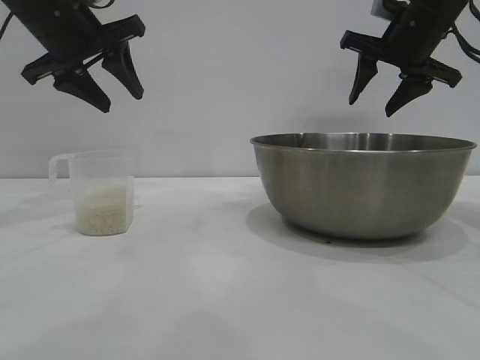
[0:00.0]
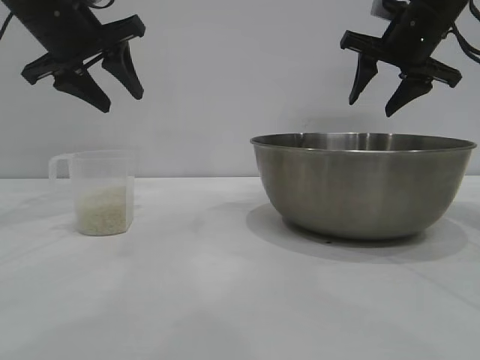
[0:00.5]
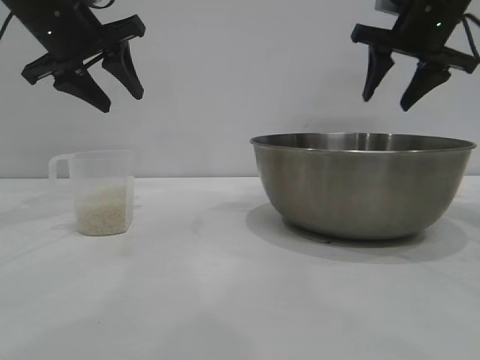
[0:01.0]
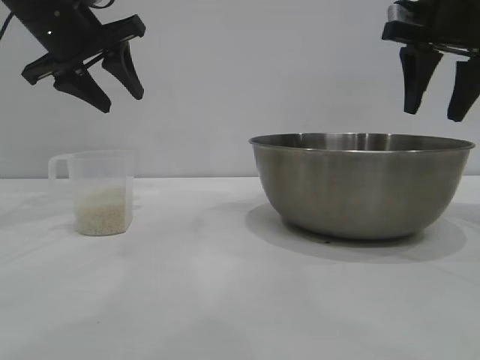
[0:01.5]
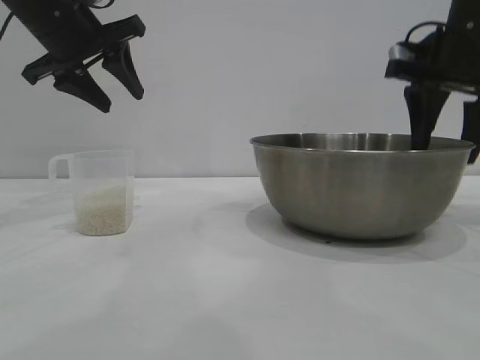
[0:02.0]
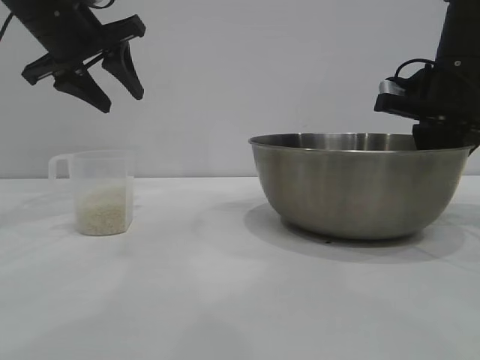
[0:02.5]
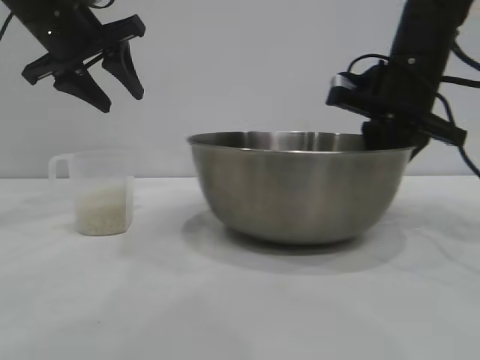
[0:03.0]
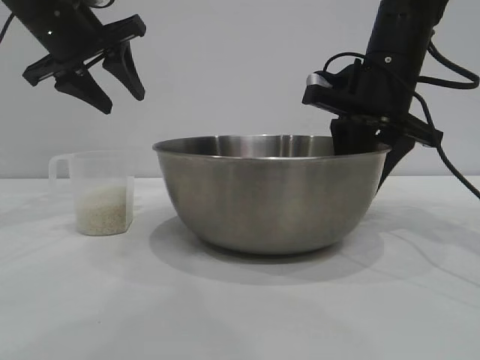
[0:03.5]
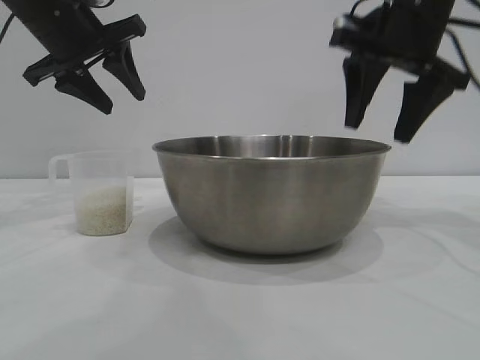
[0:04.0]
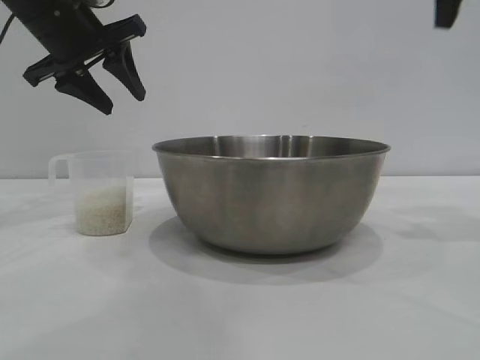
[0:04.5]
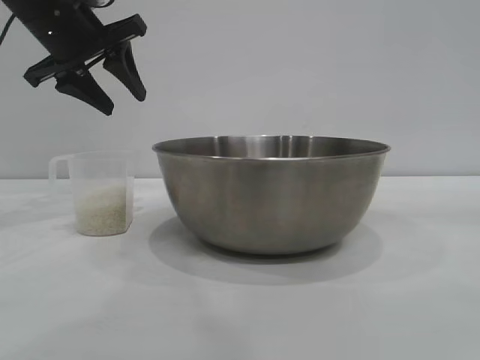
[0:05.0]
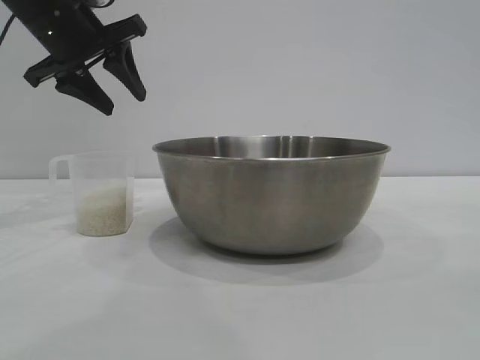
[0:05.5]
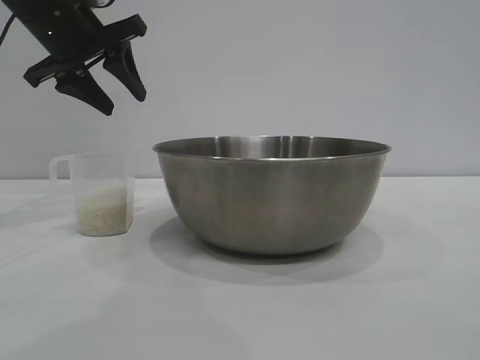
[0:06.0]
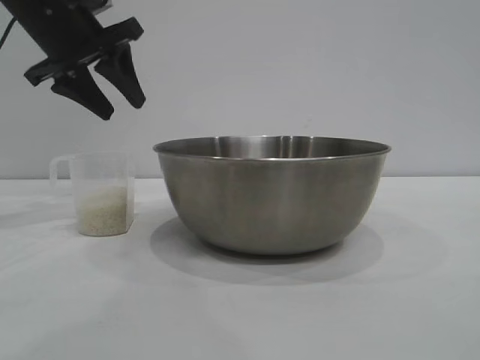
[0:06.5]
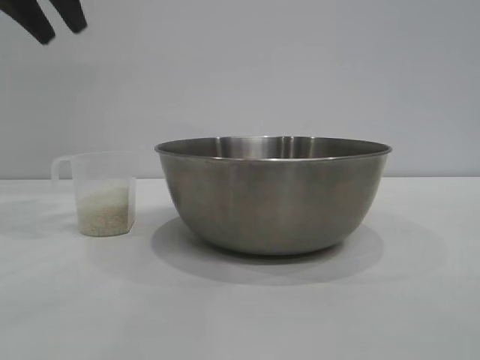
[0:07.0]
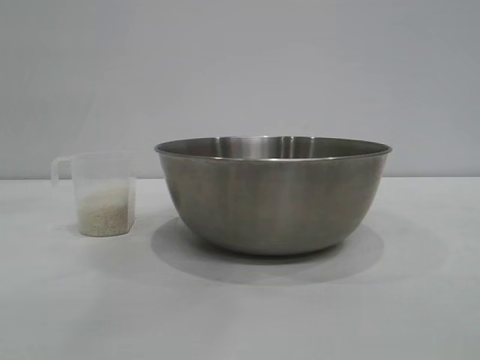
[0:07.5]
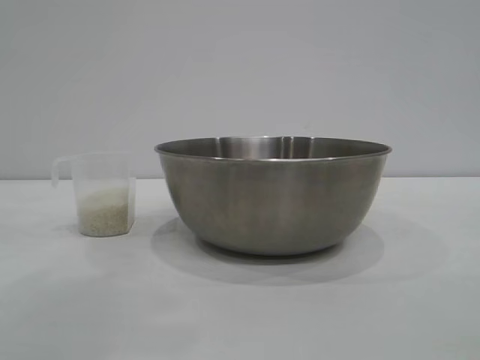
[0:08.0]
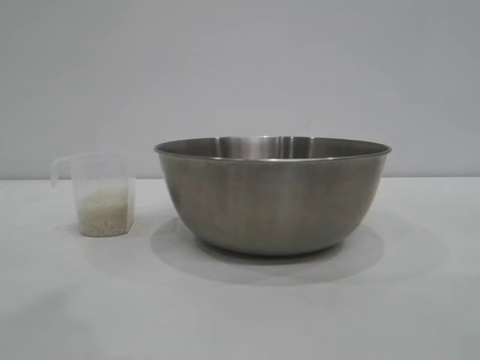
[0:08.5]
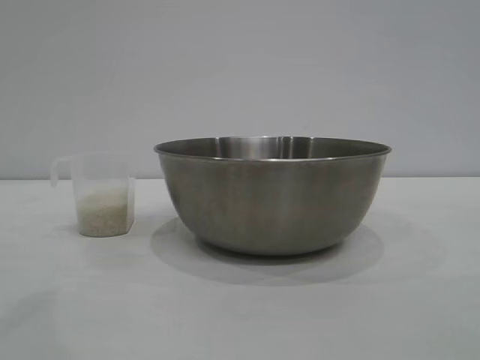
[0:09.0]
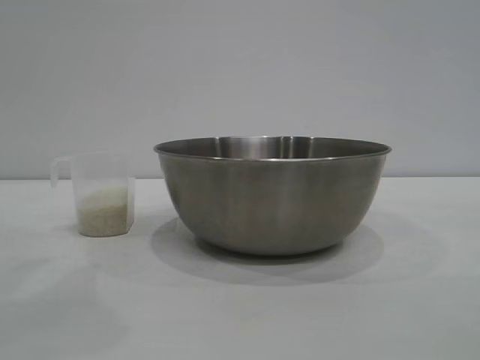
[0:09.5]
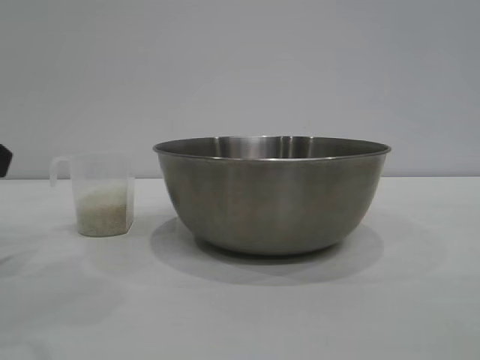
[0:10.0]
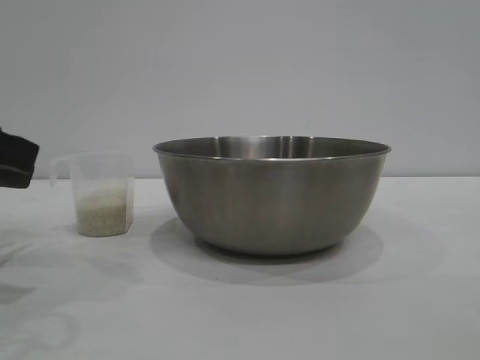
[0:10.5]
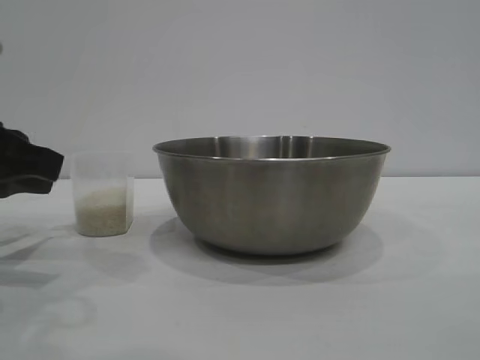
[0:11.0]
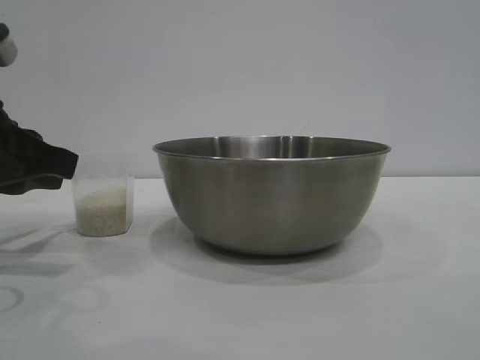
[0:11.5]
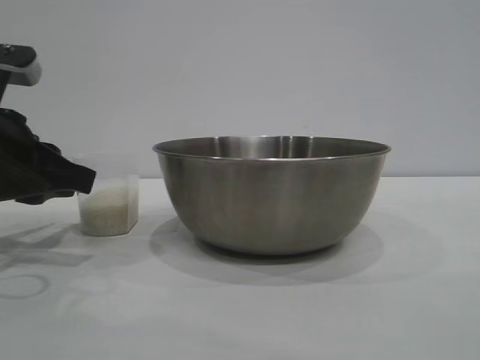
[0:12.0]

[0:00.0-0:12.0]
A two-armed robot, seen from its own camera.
Task of the whole recording: the right gripper grasp the rice container and place it in the center of the table, the left gripper grasp the rice scoop and pour the rice into the rice container.
Step, 0.0 to 3.5 s: Move the bowl to the center of view with the right gripper.

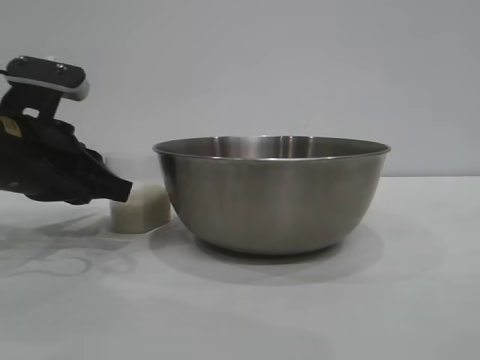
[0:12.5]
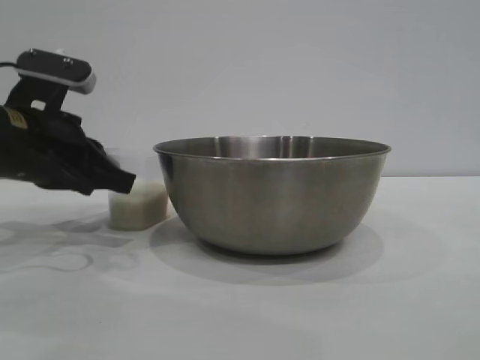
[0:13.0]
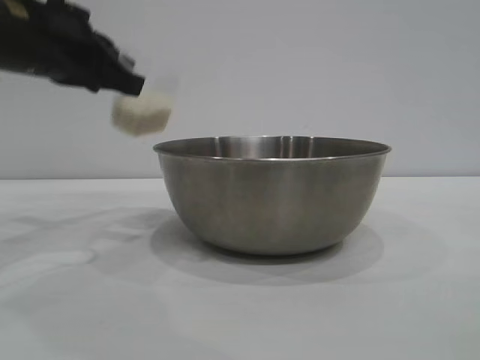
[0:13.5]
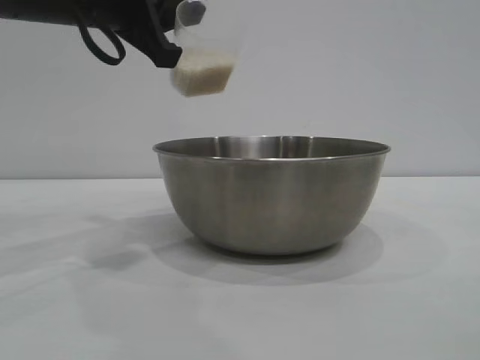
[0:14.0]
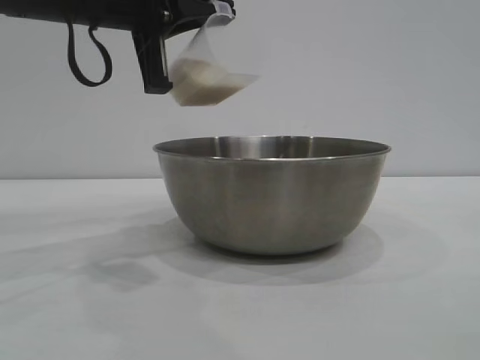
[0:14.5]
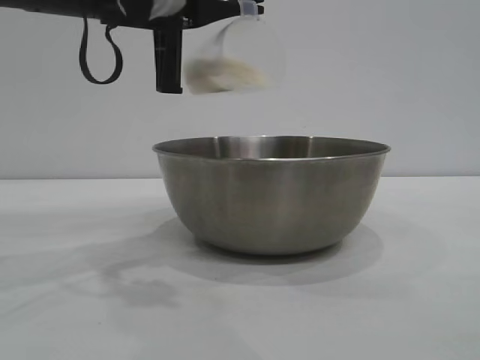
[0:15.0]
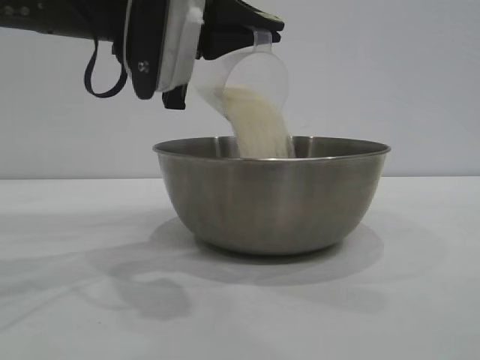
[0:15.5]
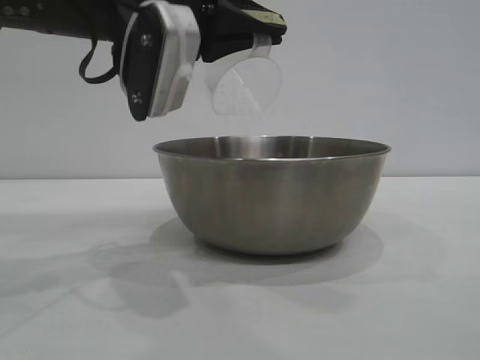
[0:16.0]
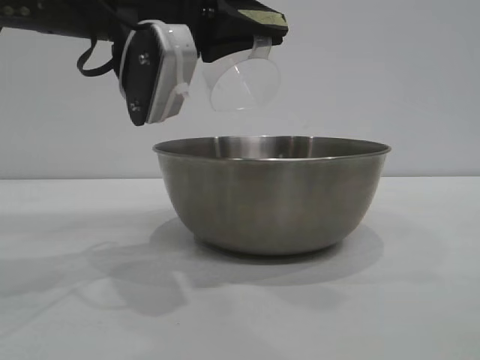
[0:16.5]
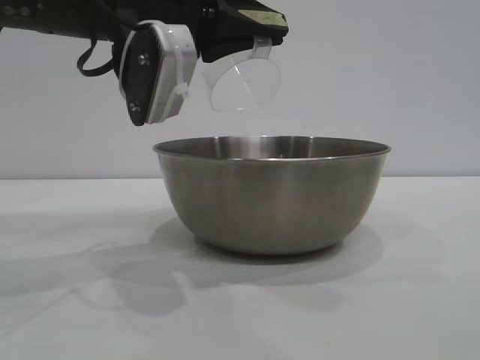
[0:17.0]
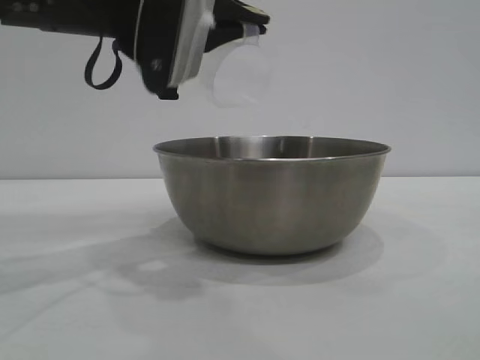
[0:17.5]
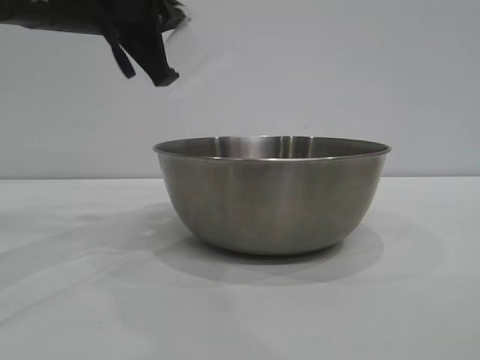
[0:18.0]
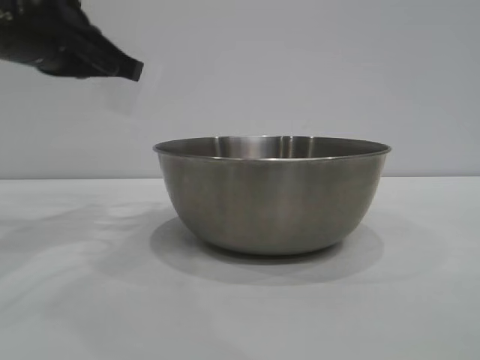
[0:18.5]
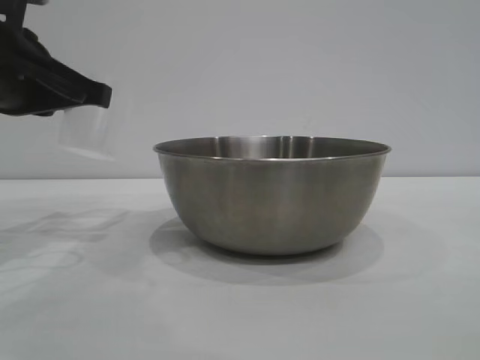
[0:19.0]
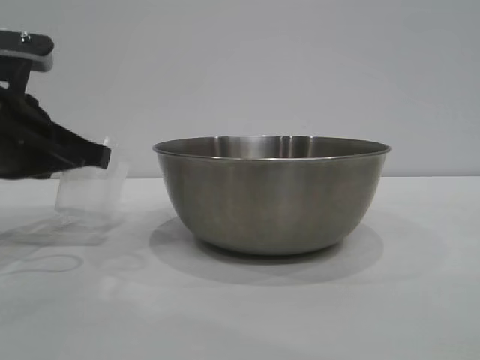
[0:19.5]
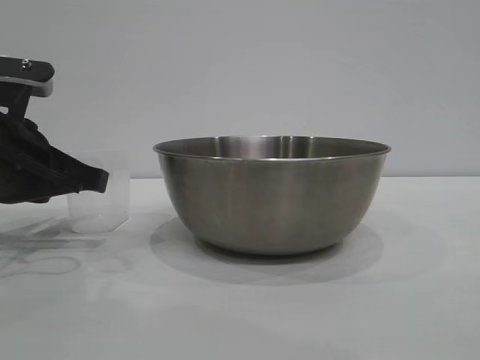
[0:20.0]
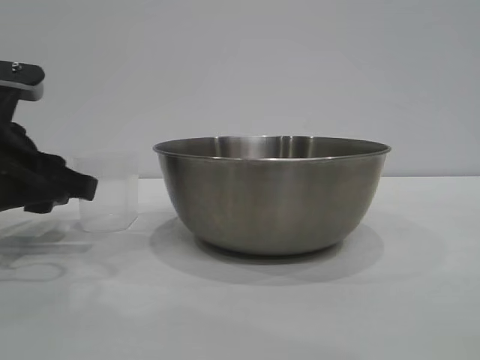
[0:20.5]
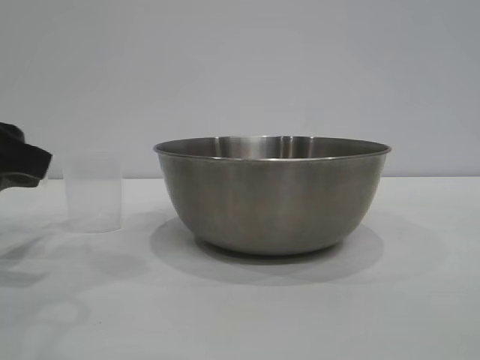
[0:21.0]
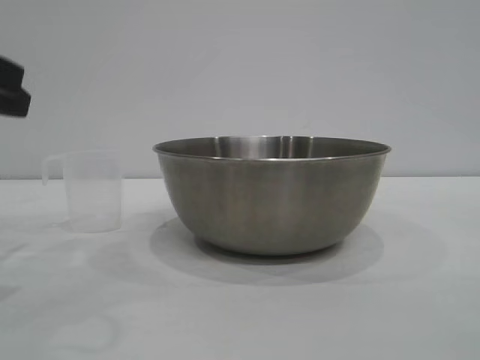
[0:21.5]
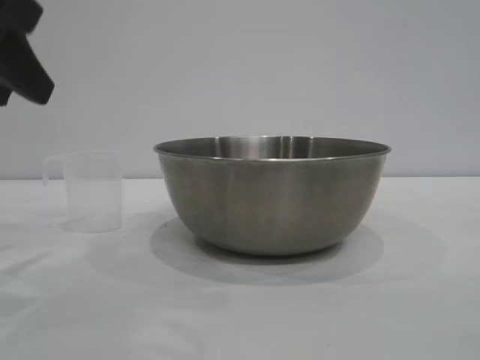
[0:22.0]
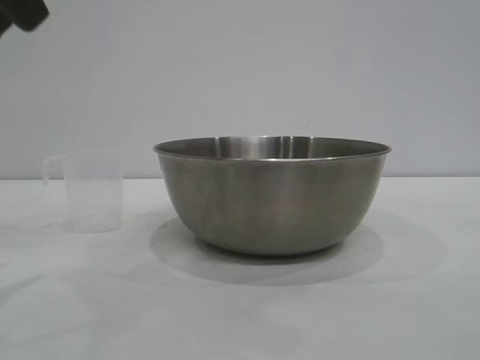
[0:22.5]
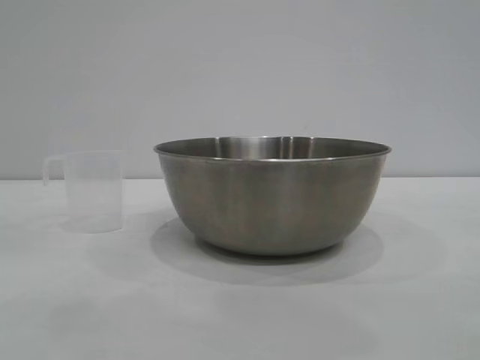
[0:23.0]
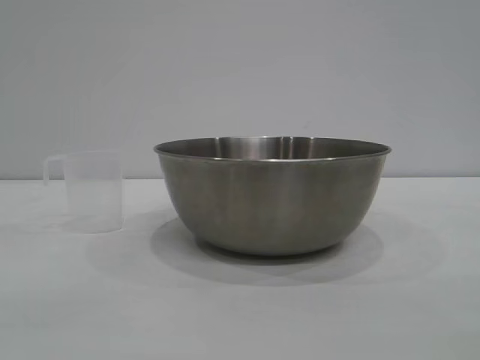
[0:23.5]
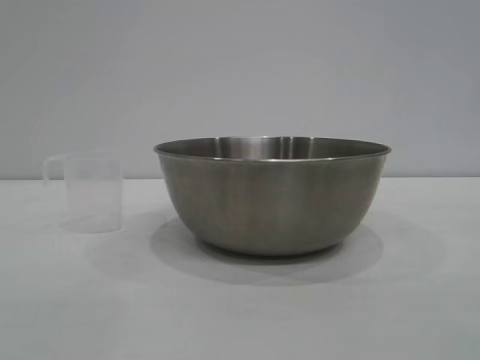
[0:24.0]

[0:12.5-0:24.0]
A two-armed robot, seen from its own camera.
Task of the whole recording: the right gripper grasp the rice container and place it in the center of the table, the left gripper grasp the rice scoop and pour the rice into the rice container.
Step, 13.5 to 17.5 s: Pour the rice from the cup into the bowl with the left gripper.
Step, 18.0 to 20.5 s: Place the cup on the table with the left gripper.

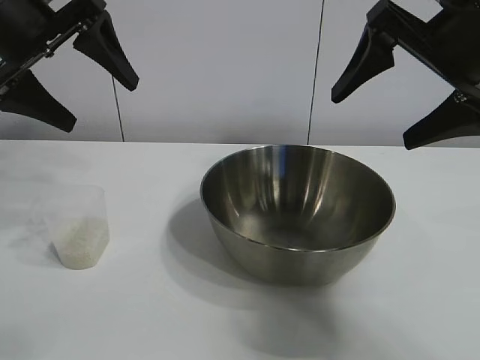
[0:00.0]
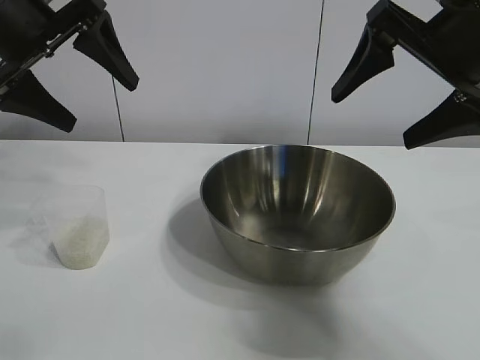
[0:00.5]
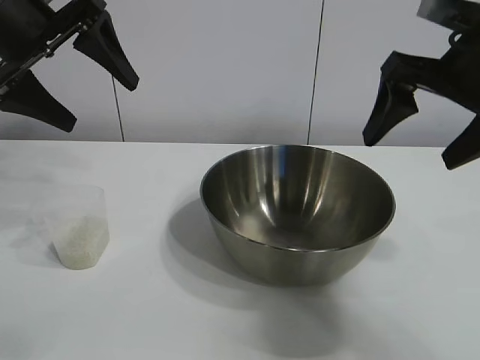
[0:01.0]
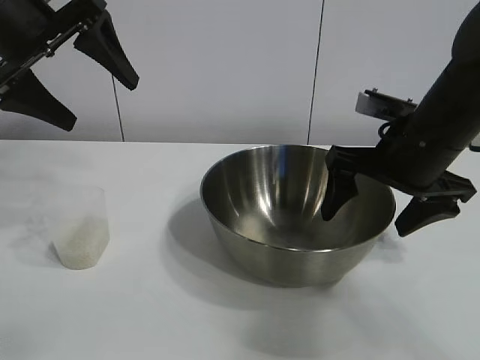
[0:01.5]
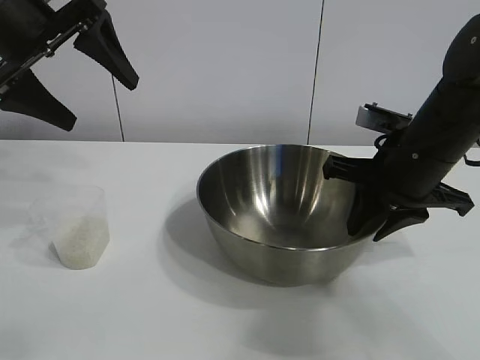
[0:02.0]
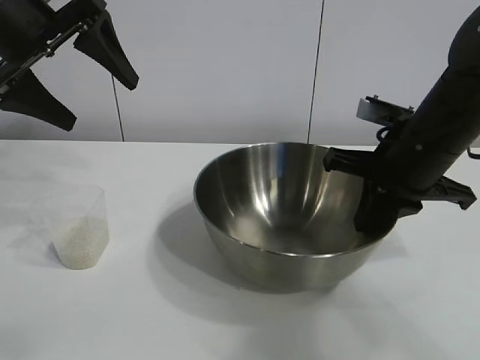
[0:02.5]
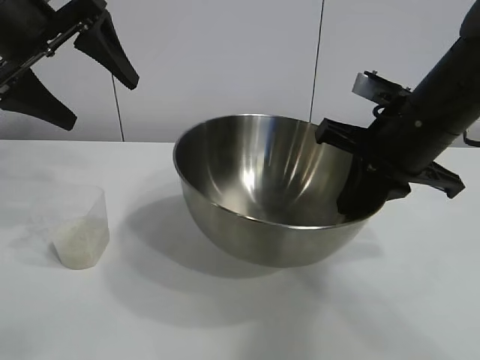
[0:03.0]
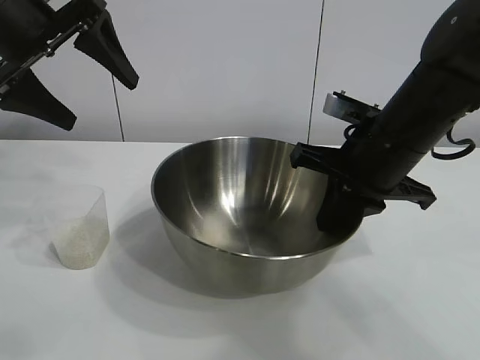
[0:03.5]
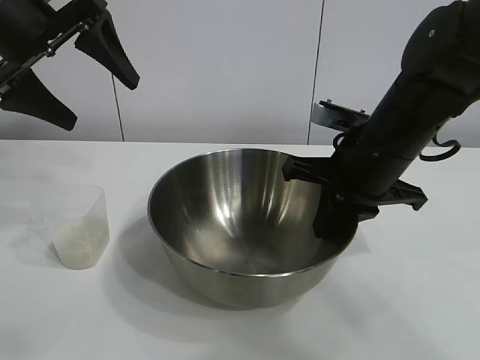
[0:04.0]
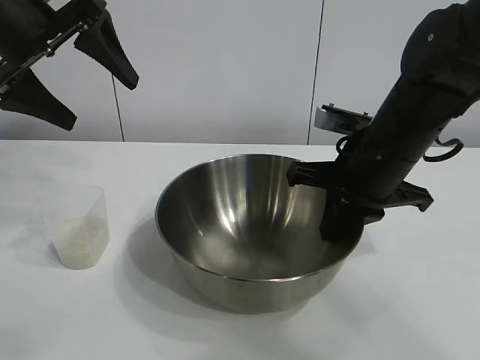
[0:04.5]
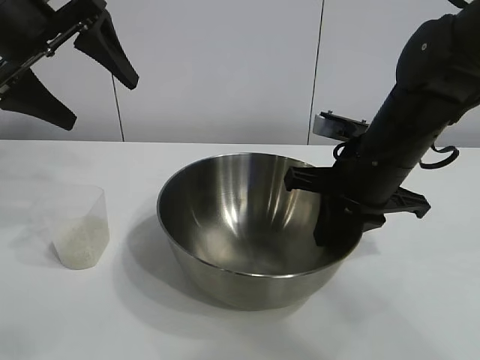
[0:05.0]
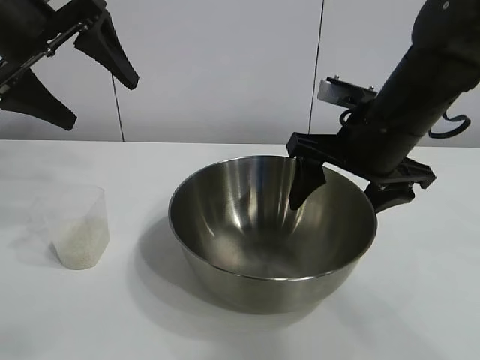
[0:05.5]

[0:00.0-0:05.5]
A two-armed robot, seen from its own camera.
Task of the whole recording: the right gripper grasp the rice container and place it in the center of the table, the left gripper grasp the rice scoop and pour the rice into the rice container.
Step, 1.0 to 5.5 s: Move the bowl in the center of view with right gripper.
